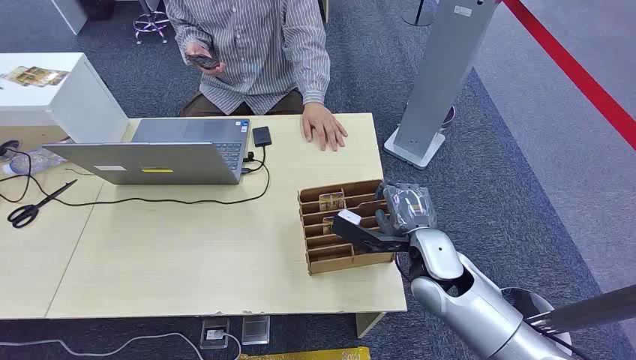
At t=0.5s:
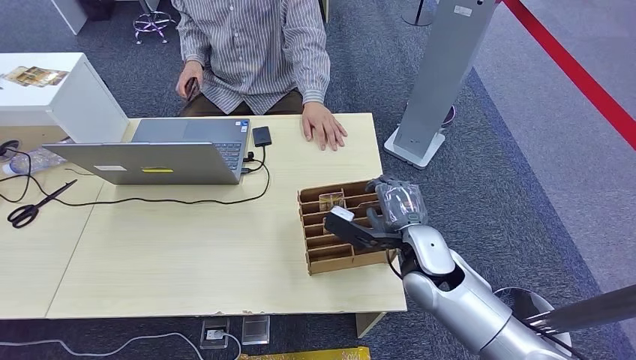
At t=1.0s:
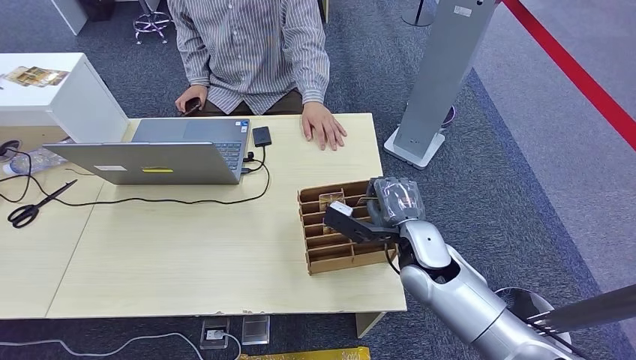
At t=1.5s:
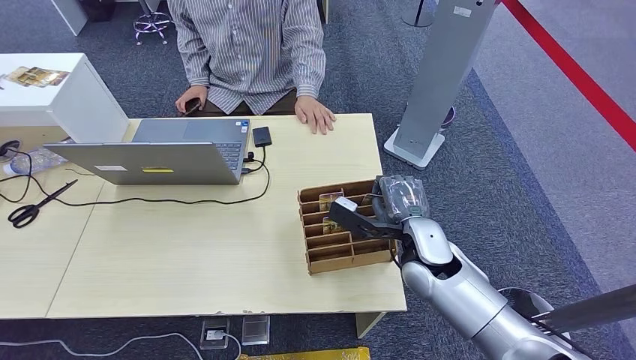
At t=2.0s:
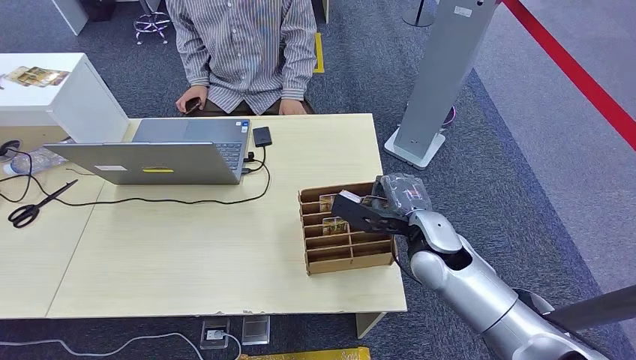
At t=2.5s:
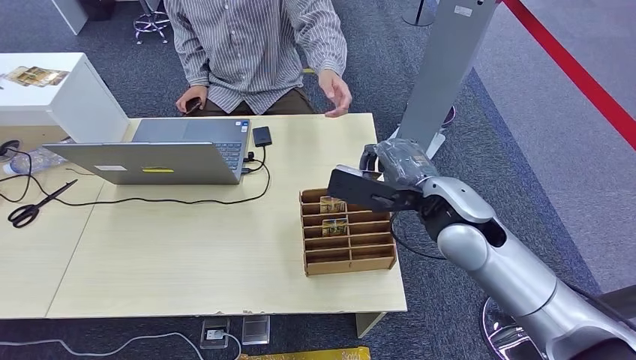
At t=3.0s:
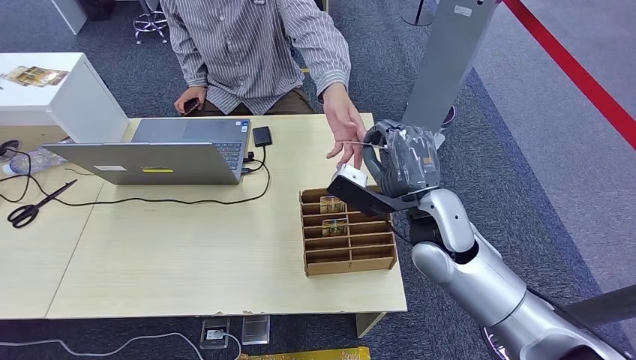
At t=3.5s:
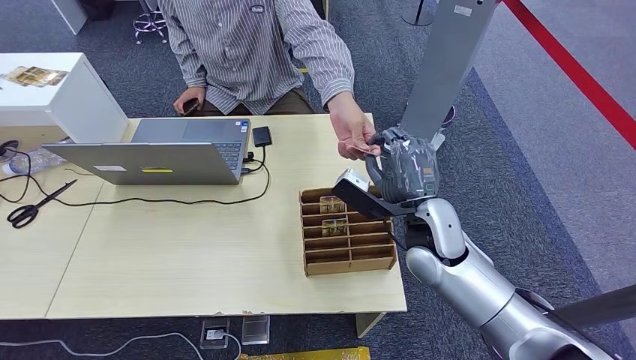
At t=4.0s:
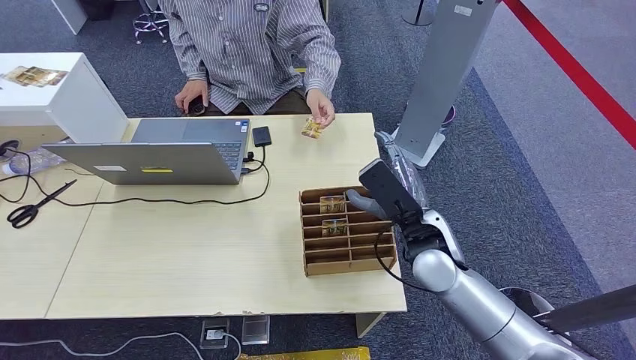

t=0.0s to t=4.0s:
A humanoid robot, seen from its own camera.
Step, t=0.0s to t=2.0s: Pick up the room card from the card holder.
Step, t=3.0s to t=4.0s: Hand the room card to the target.
t=2.0s to t=4.0s: The right hand moves roughly 10 cm upward and comes back.
